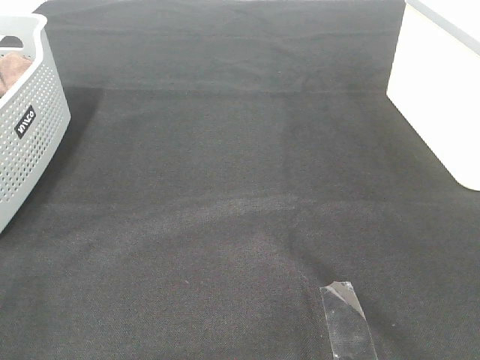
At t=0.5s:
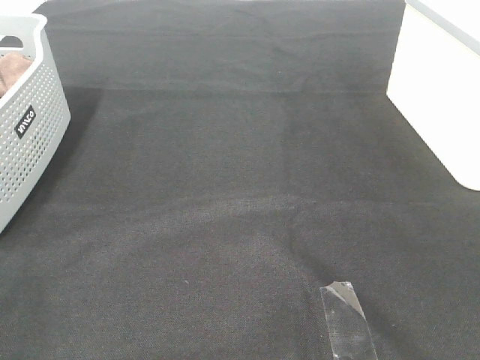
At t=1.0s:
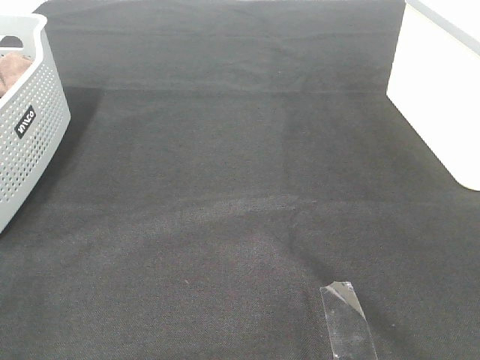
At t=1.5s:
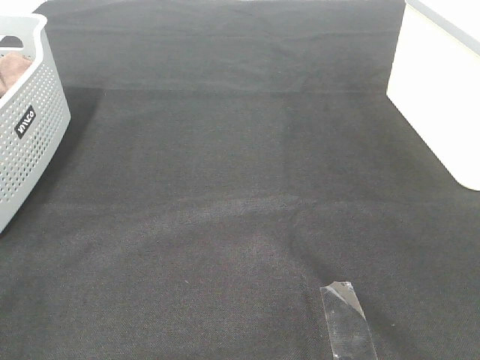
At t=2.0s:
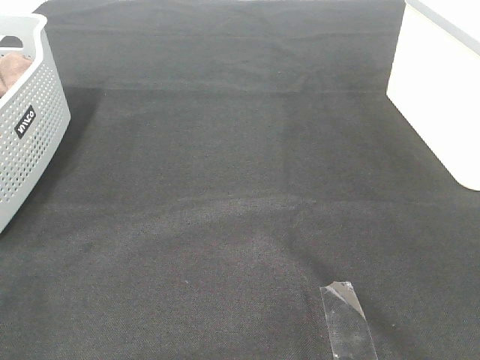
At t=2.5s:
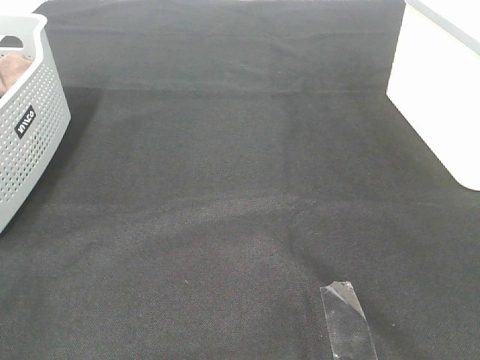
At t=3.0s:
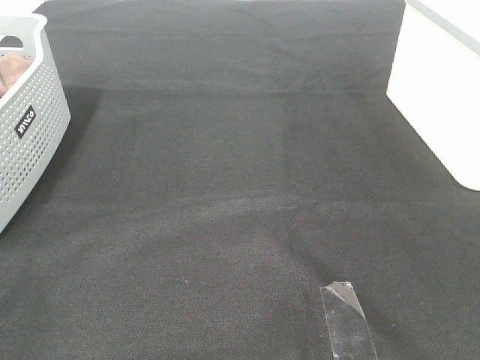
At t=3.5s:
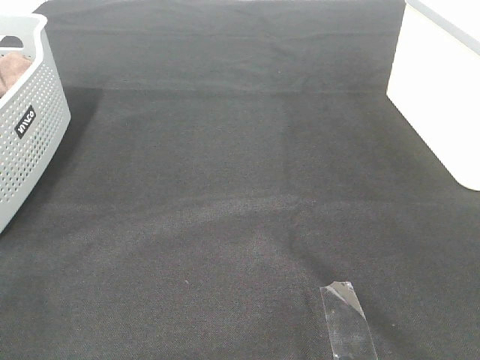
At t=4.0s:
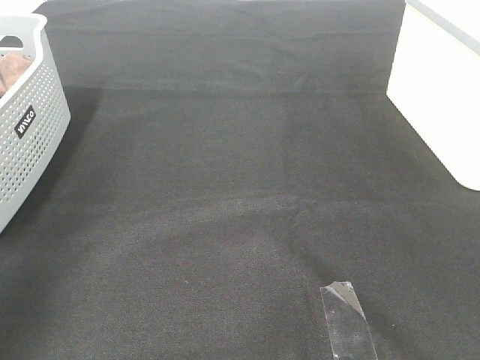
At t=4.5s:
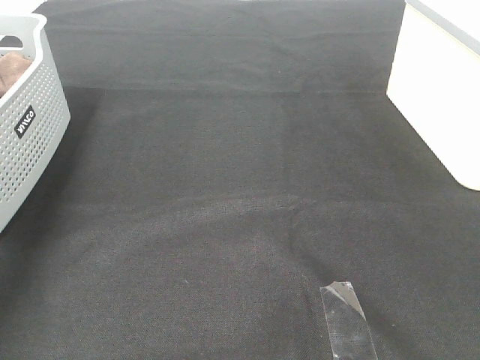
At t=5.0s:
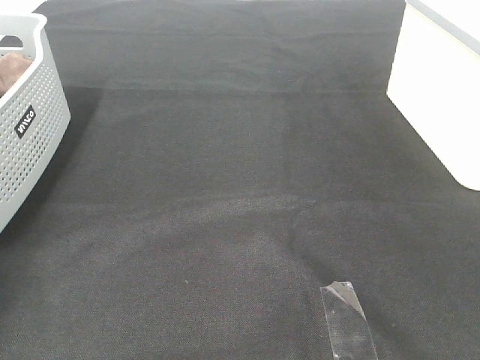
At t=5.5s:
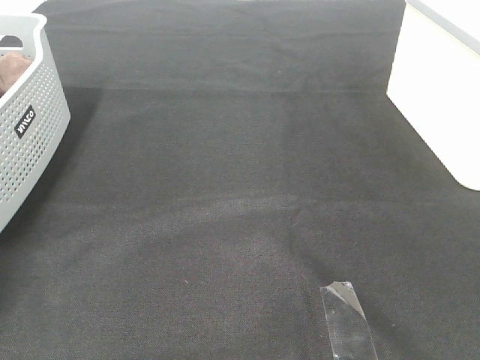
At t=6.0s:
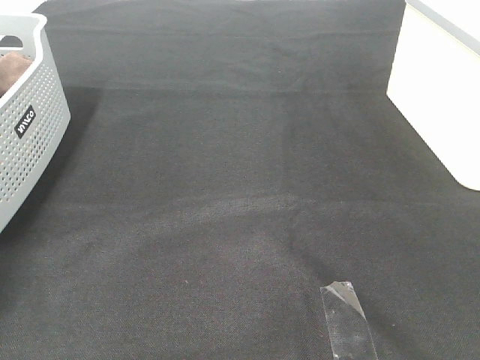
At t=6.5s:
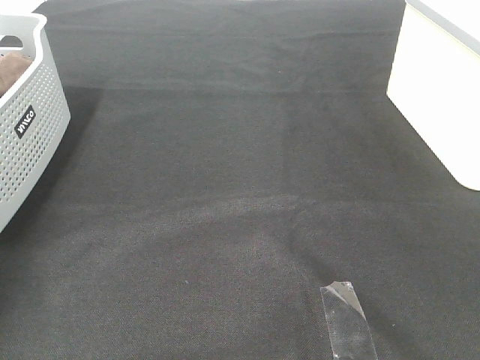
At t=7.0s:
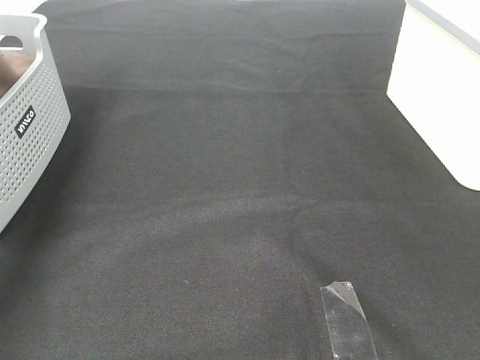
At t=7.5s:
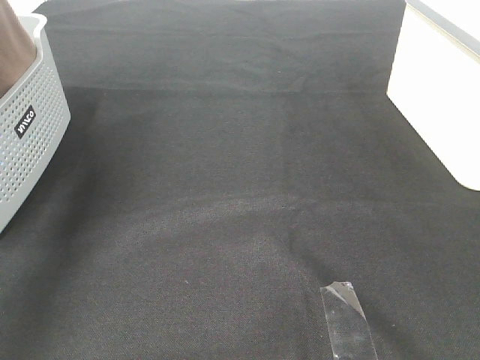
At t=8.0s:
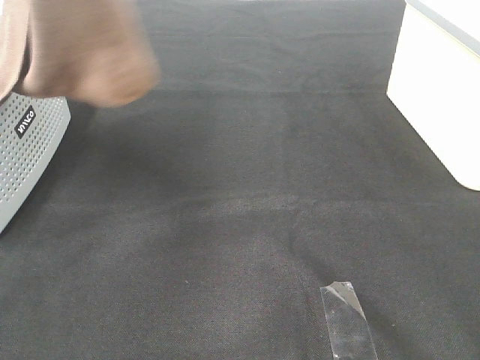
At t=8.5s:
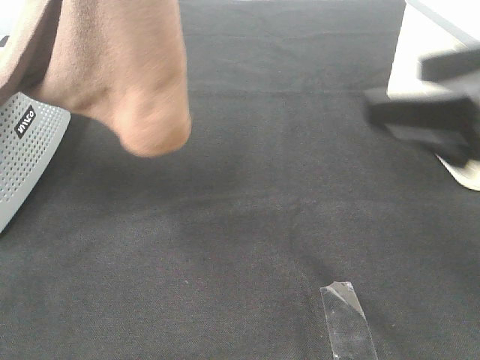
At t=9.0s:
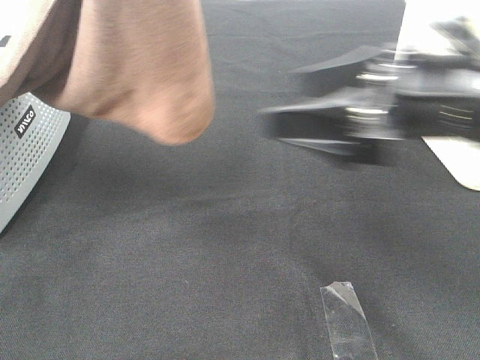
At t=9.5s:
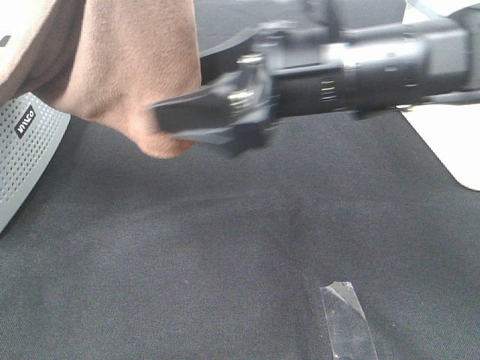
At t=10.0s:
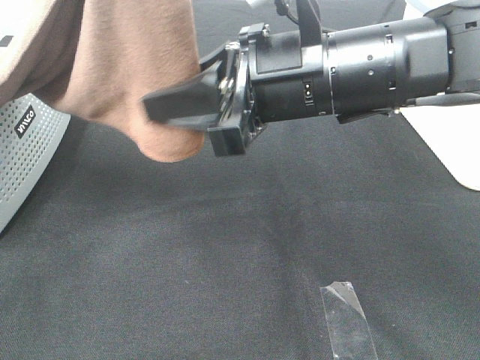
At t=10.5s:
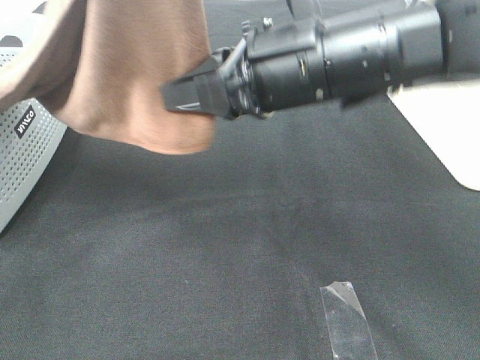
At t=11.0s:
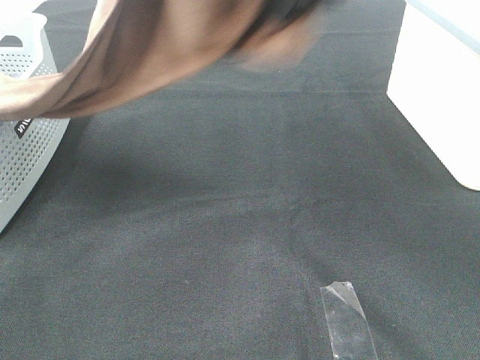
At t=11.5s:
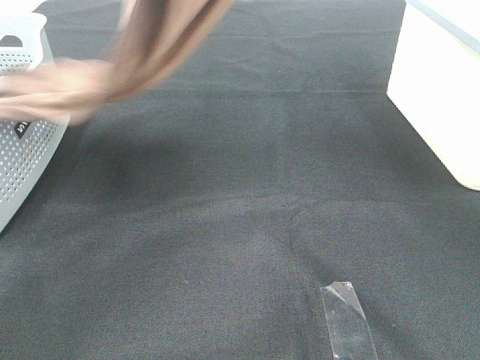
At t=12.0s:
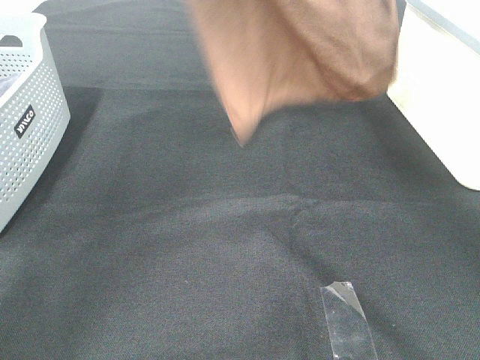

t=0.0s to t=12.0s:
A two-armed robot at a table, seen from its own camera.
Task of the whole recording: Remove the towel and place it.
Step, t=8.0s to t=9.5s: Right hand: grab a corner of the brown towel and straighten it.
t=0.0s to t=2.0s: The two grippers keep their place.
t=2.0s to t=4.0s: The left gripper moves forward and upward, roughly 20 cm.
t=4.0s to t=6.0s: The left gripper moves forward and downward, about 35 cm, and closes.
t=6.0s to t=8.0s: The left gripper moves upward, to the right and backward, roughly 50 cm. Meanwhile the right gripper moves forward, approximately 5 cm.
t=8.0s to t=10.0s: The left gripper goes approximately 5 cm to the right, while the right gripper shifts some 25 cm to the left and forward, and closes.
t=10.0s to t=12.0s: The left gripper moves forward, approximately 20 cm. Meanwhile the right gripper moves upward and forward, roughly 30 cm.

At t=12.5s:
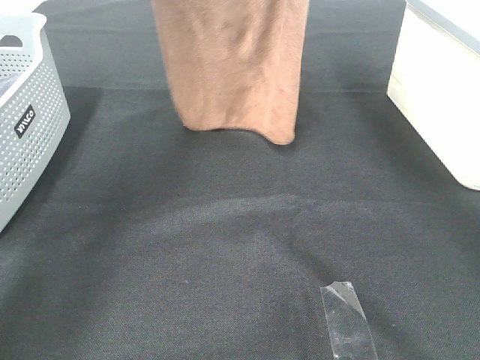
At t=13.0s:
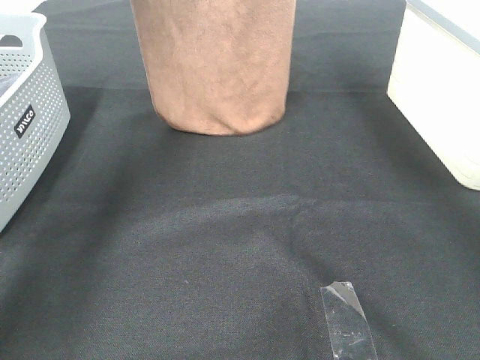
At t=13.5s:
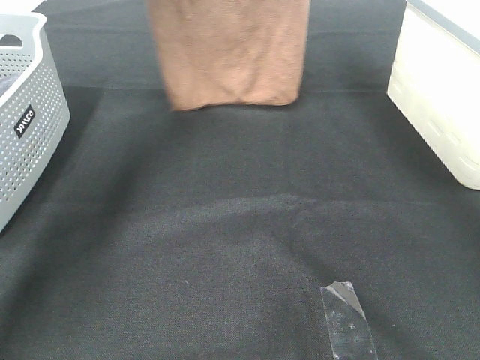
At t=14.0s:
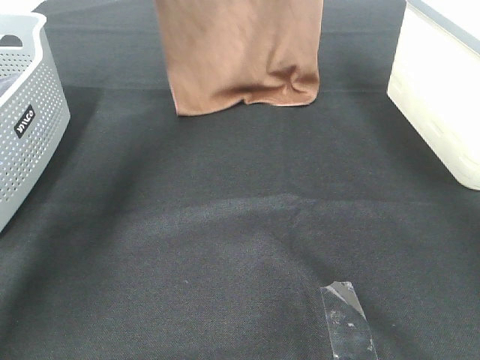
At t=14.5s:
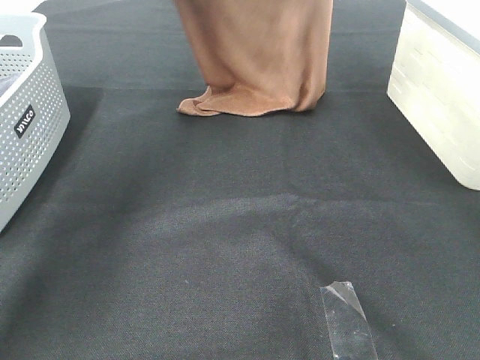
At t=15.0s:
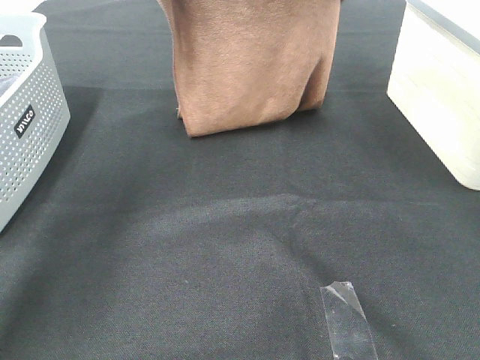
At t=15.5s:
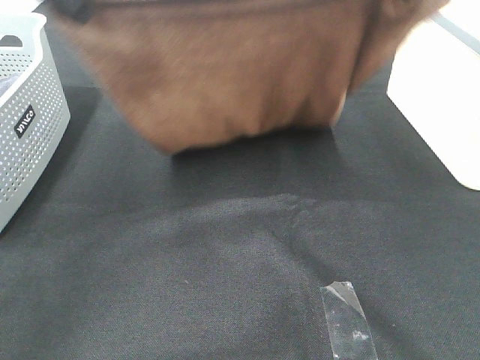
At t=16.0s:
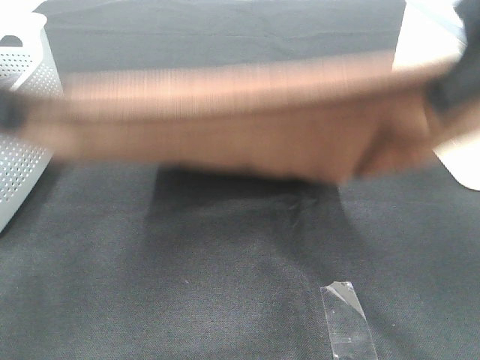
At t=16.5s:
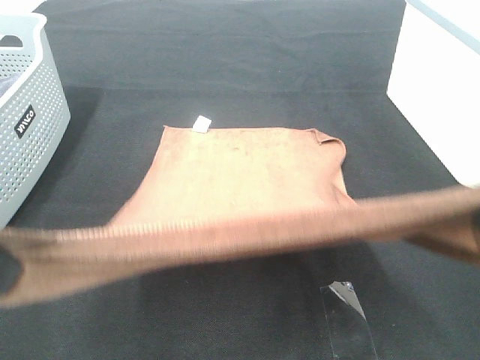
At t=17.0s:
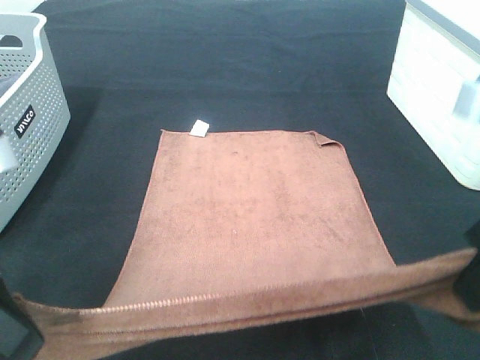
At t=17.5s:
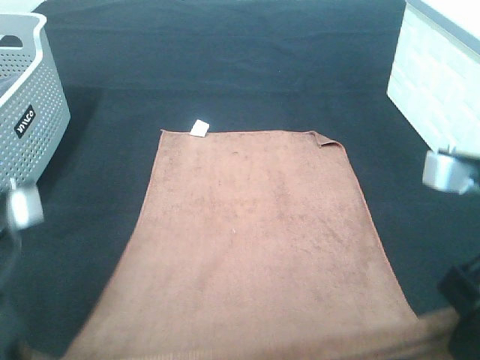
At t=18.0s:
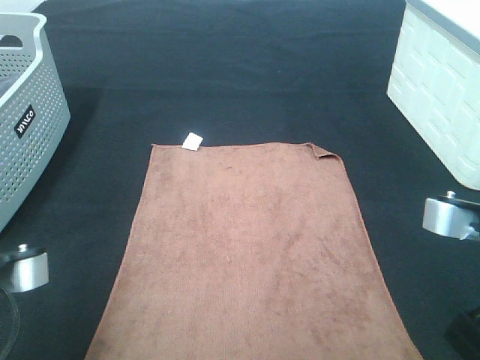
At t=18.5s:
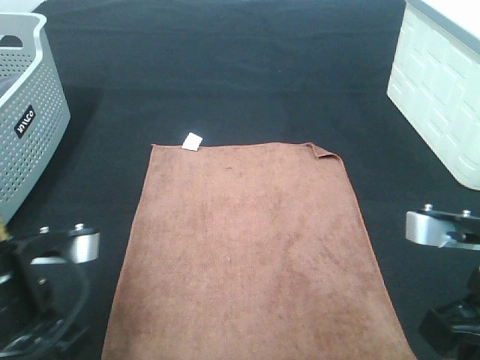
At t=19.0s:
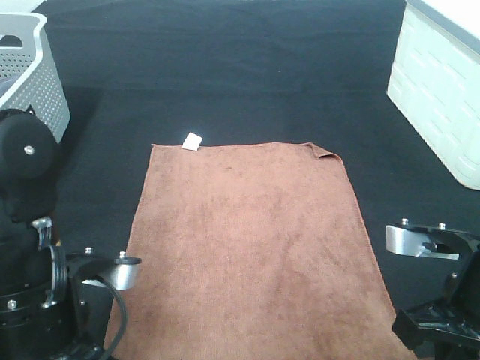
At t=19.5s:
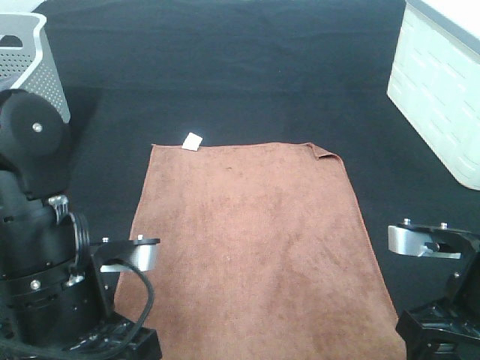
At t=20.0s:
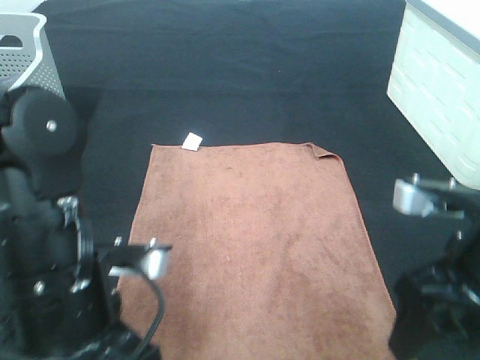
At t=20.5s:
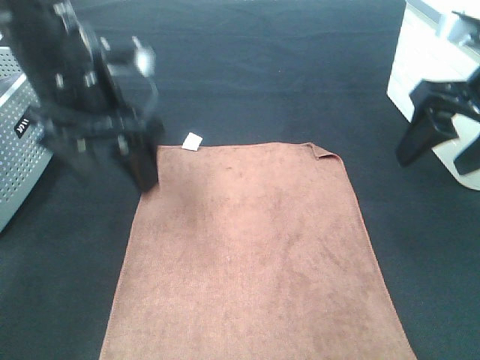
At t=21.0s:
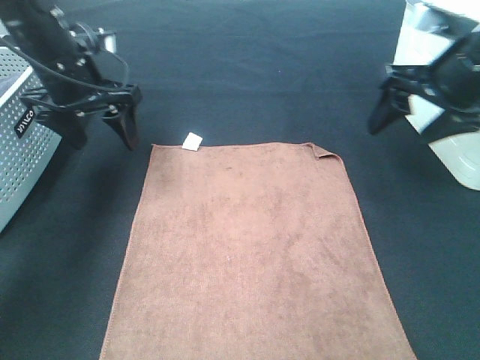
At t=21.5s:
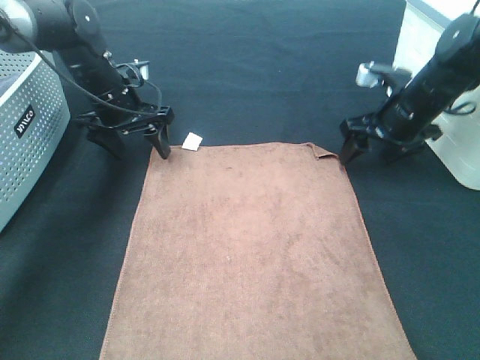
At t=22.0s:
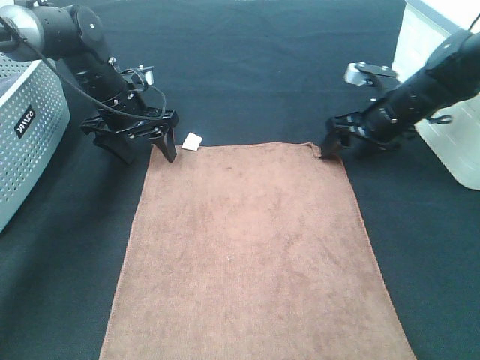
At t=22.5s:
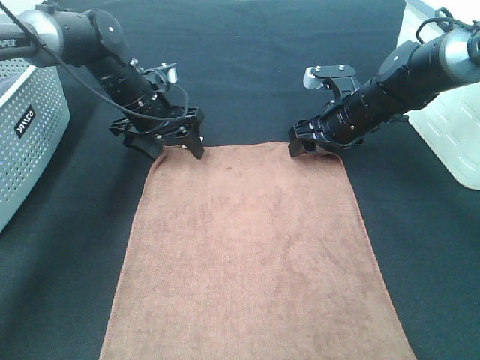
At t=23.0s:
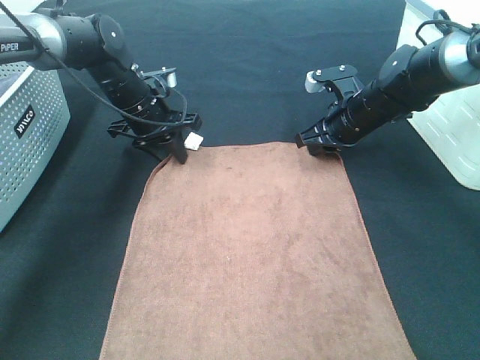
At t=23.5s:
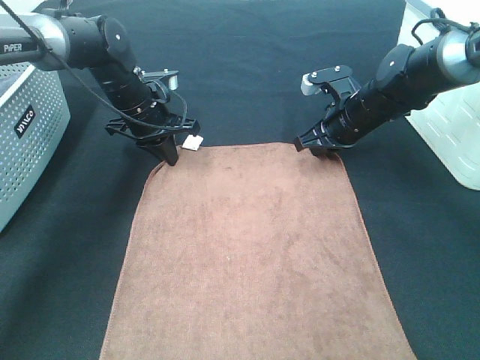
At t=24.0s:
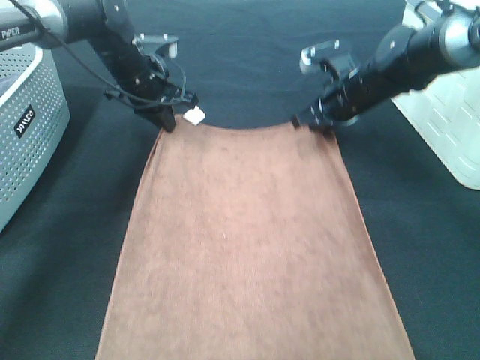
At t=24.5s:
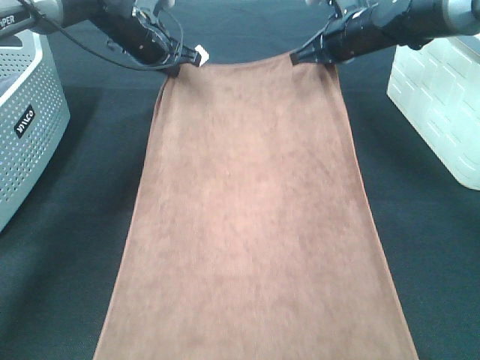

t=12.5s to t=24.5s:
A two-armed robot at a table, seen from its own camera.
Task of the whole recording: Remove the towel and place it.
Step, t=12.5s to t=15.5s: Left hand: spread the brown towel flat on the table.
Step, t=12.5s to t=15.5s: Right hand: spread the brown towel flat on the table.
Step, t=16.0s to t=21.5s: Left hand:adjust the brown towel.
Step, t=16.0s to t=21.5s: Right hand:adjust the brown towel.
t=12.5s to t=14.5s: The left gripper heads downward, covering about 10 cm; the right gripper moves downward and to the right, about 10 cm.
t=14.5s to t=16.5s: Both grippers travel together backward, roughly 35 cm.
t=16.5s to t=18.5s: The two grippers go approximately 15 cm downward.
t=18.5s to t=20.5s: The grippers both shift forward and upward by roughly 15 cm. The left gripper opens up, while the right gripper opens its fingers.
t=20.5s to t=22.5s: The right gripper goes approximately 25 cm downward, forward and to the left. Meanwhile the left gripper travels forward and downward by roughly 20 cm.
t=22.5s to t=24.5s: The grippers both shift upward and forward by approximately 10 cm. The right gripper closes up. The left gripper closes its fingers.

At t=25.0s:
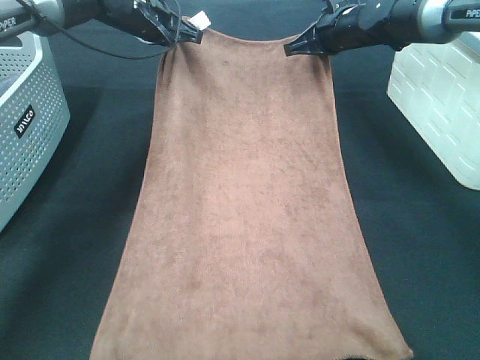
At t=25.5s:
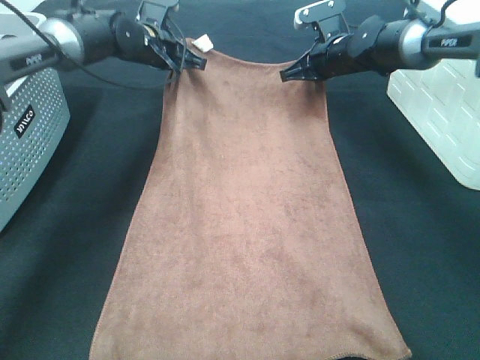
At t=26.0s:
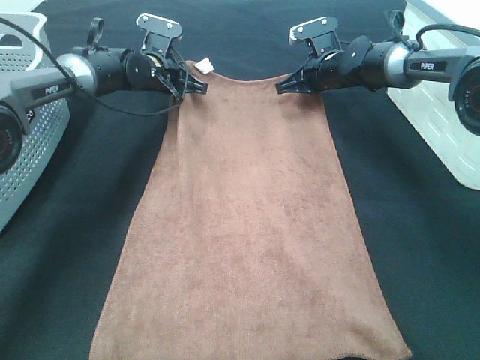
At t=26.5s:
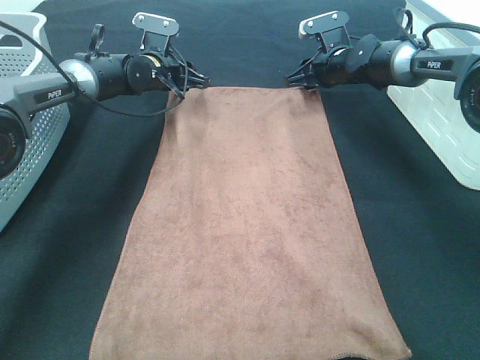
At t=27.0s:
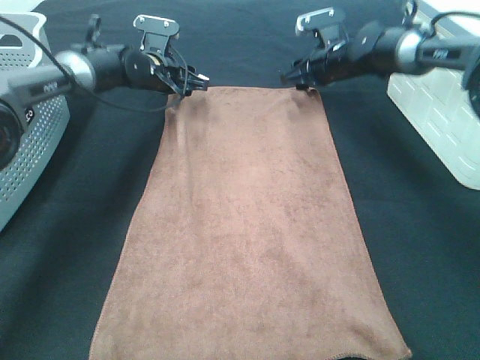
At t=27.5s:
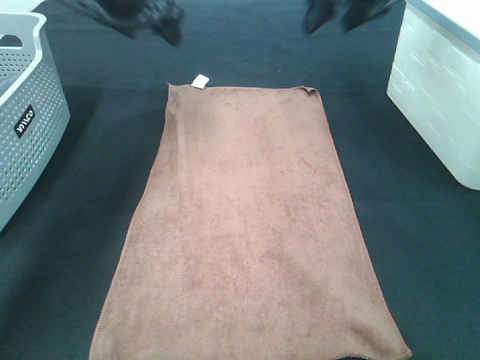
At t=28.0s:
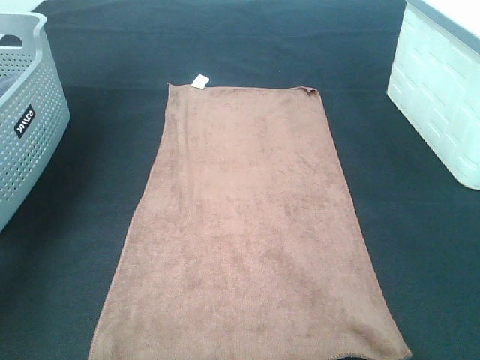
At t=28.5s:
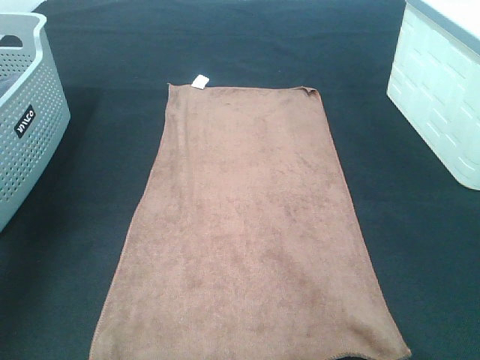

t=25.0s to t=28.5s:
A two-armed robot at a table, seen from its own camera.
Task of the whole recording: Remove the towel and place it.
t=25.0s to t=27.0s: The left gripper goes about 10 cm downward, and opens its fingers, while the right gripper is displaced downward by roughly 5 cm, and opens its fingers.
t=27.0s to t=28.5s: The right gripper is displaced backward and upward by approximately 50 cm, while the left gripper travels backward, upward and to the left by roughly 40 cm.
